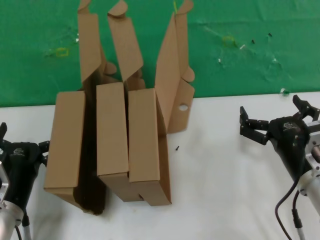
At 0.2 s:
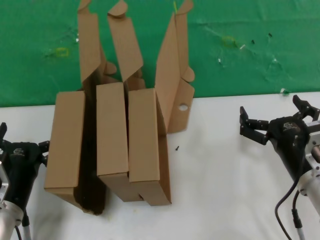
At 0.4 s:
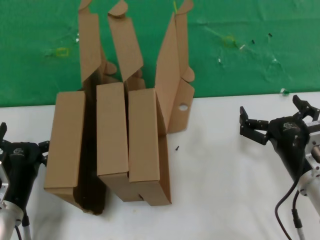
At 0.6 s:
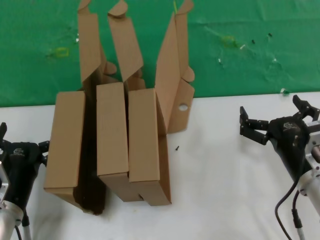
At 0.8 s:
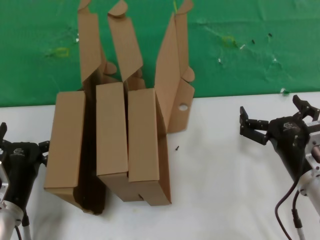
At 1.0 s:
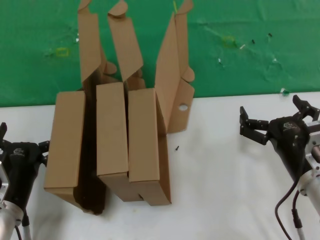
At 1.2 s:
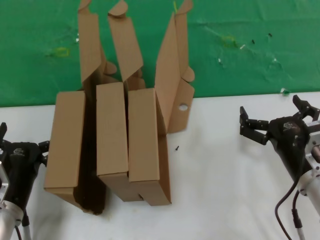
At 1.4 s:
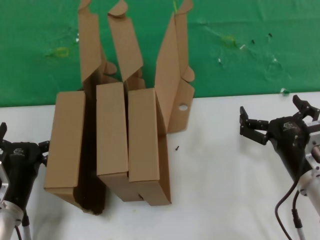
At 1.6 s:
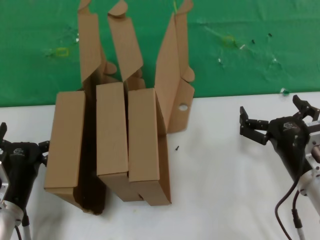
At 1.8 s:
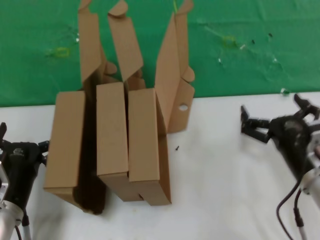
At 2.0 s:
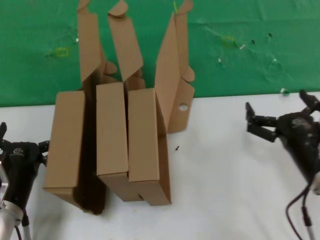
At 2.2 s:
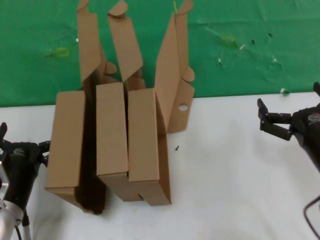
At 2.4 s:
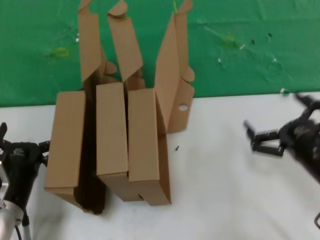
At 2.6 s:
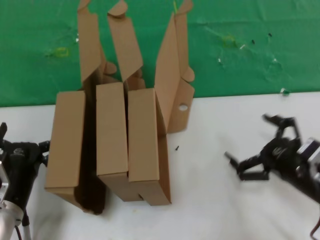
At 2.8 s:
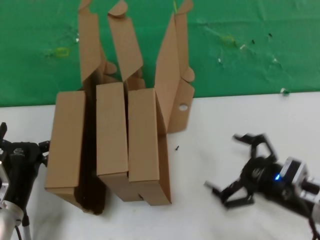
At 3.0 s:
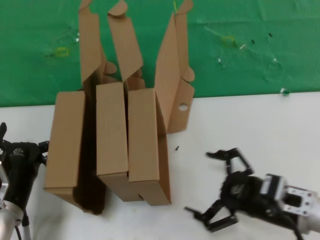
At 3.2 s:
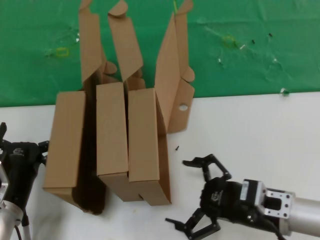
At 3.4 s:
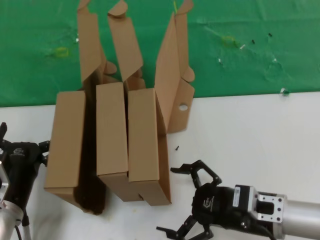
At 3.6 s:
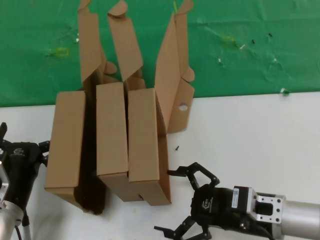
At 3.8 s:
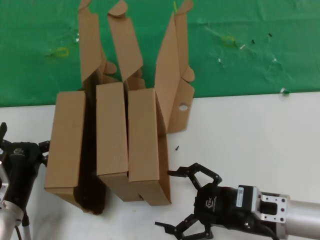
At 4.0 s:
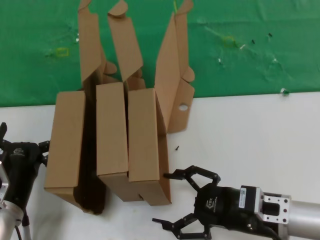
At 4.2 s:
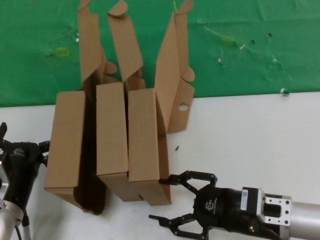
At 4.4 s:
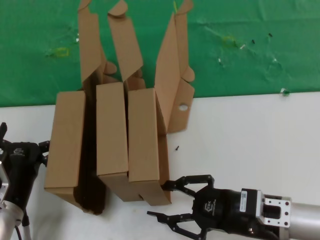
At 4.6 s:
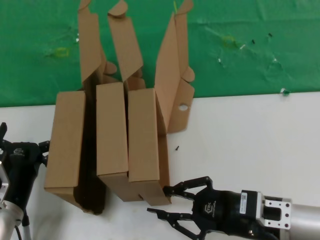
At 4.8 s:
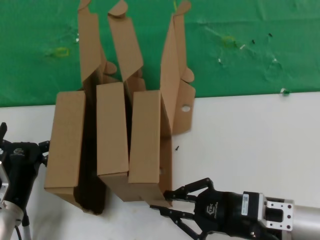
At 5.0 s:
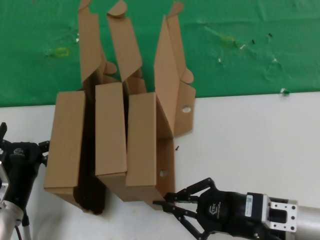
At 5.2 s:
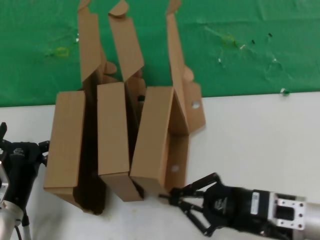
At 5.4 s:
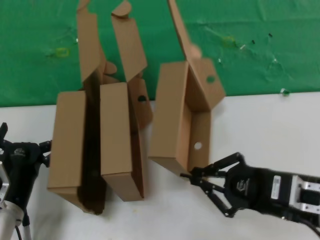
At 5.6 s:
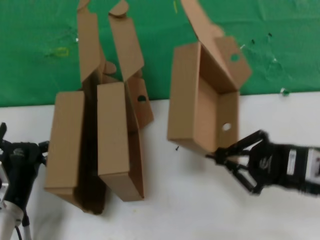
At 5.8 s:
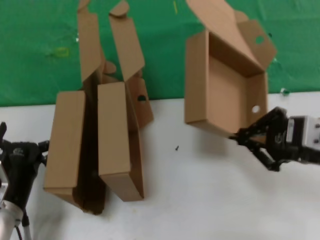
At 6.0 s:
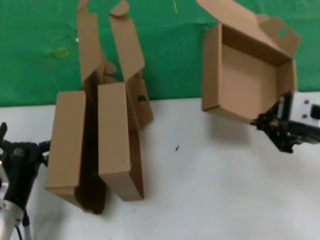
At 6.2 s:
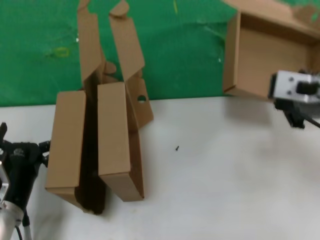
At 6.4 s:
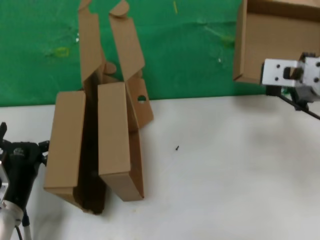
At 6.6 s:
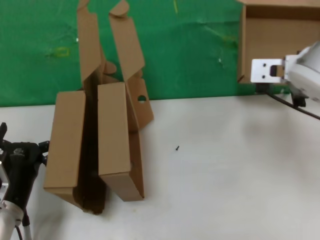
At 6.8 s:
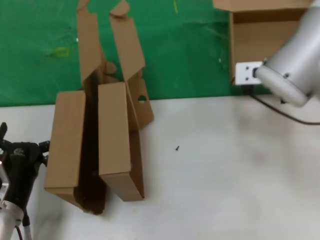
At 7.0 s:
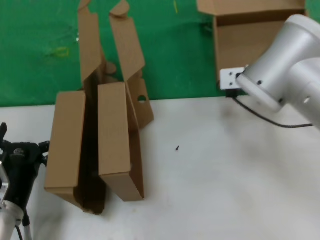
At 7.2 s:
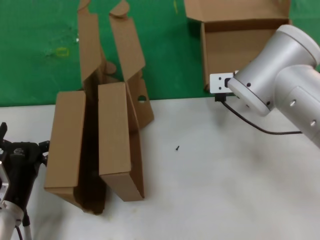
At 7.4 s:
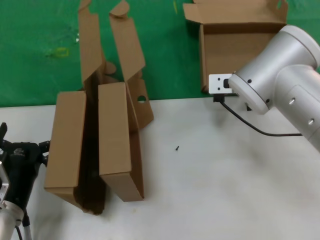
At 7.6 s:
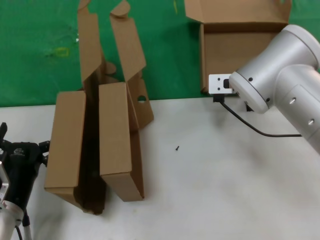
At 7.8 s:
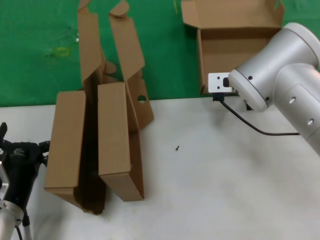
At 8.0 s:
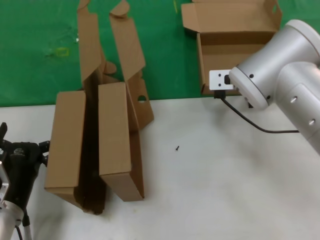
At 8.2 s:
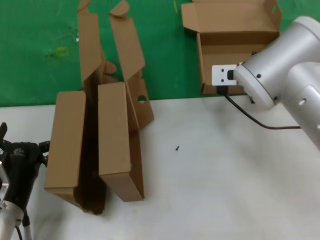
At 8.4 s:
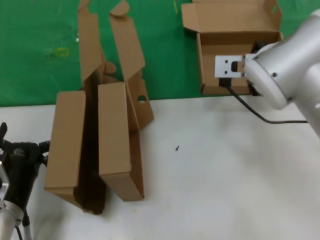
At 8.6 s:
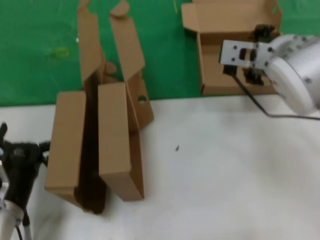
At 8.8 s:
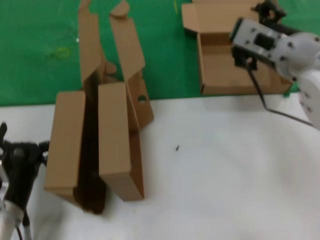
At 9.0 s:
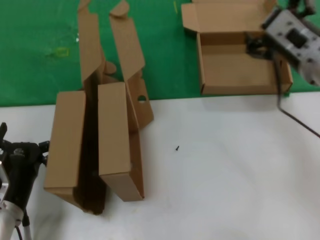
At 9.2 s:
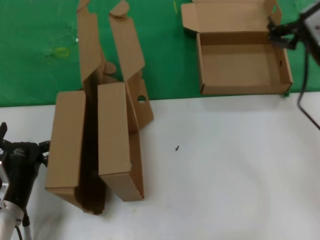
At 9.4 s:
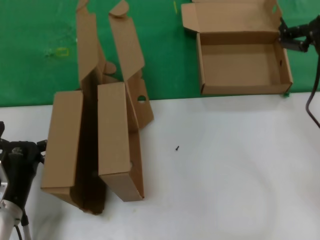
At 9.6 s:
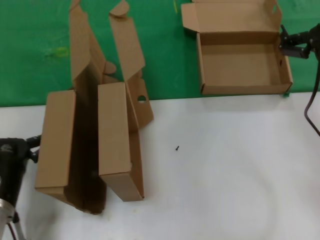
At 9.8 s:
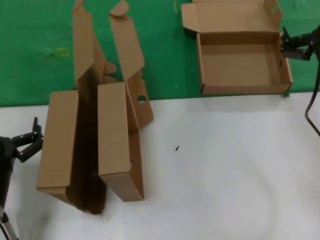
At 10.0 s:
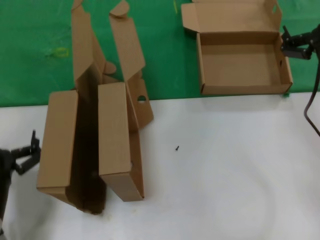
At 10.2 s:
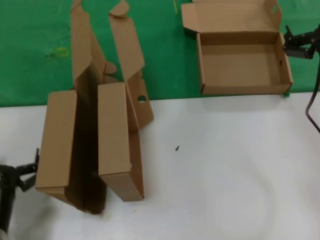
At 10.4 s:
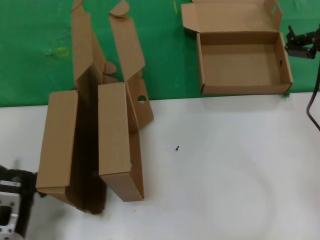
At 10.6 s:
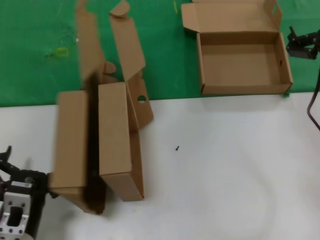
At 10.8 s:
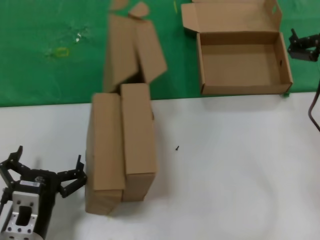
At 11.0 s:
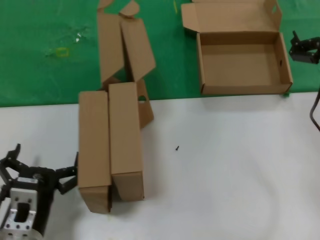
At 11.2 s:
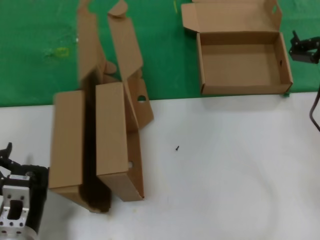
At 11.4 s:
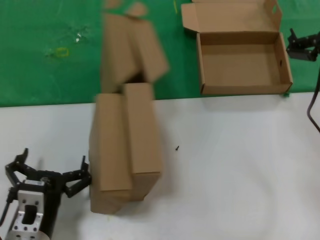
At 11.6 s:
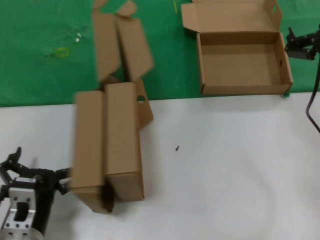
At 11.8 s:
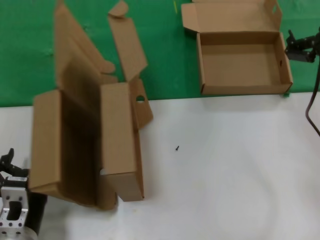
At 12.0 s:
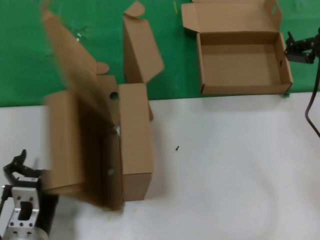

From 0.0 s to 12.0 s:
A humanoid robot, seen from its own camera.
Task of the whole recording: pick up the paper box and put it at the back.
Step, from 0.0 s to 5.0 s: Grasp the paper box.
Step, from 5.4 s to 8.4 s: Place the paper box on the table.
From 0.0 s to 1.6 s: Both hands stay put.
From 3.0 s to 4.4 s: The hands stay close to where they were, moving slightly.
From 4.4 s to 6.0 s: The right hand goes approximately 20 cm upward.
From 6.0 s to 7.6 s: The right hand heads forward and to the left, covering roughly 20 cm.
From 7.6 s to 9.0 s: The right hand travels backward and to the right by about 15 cm.
From 9.0 s to 10.4 s: The right hand goes approximately 5 cm to the right.

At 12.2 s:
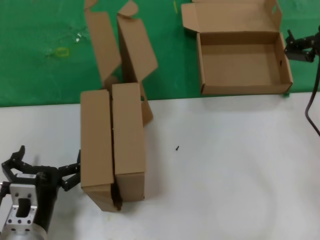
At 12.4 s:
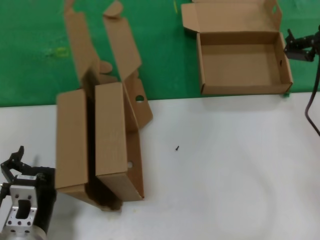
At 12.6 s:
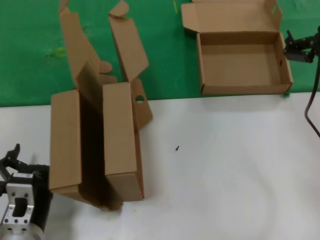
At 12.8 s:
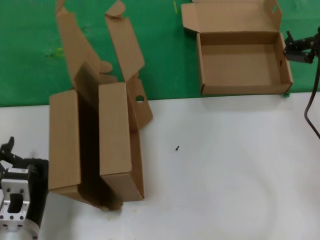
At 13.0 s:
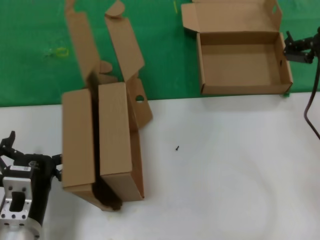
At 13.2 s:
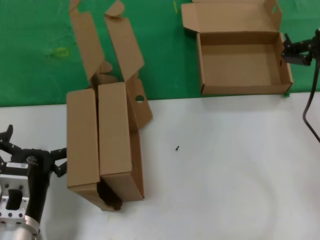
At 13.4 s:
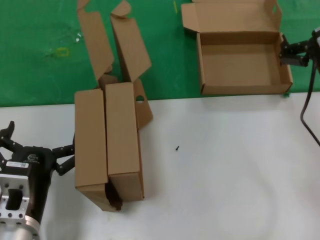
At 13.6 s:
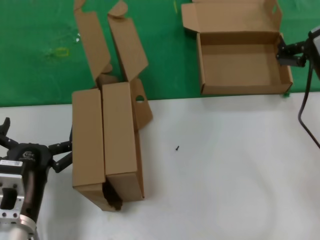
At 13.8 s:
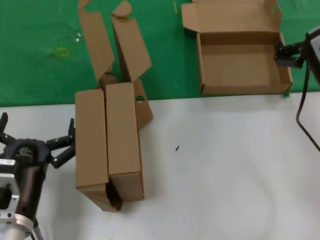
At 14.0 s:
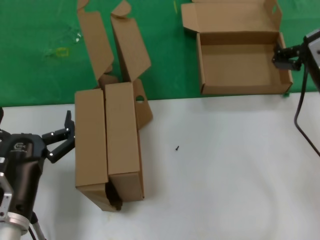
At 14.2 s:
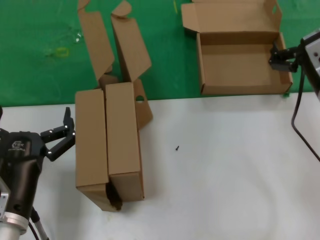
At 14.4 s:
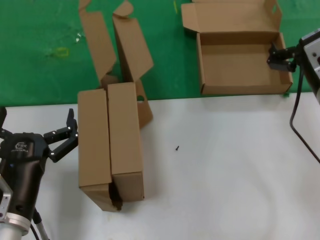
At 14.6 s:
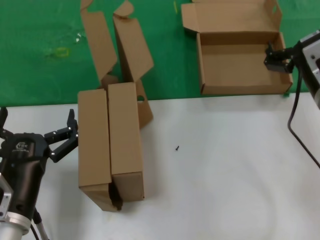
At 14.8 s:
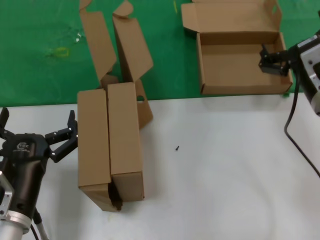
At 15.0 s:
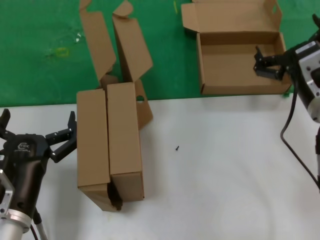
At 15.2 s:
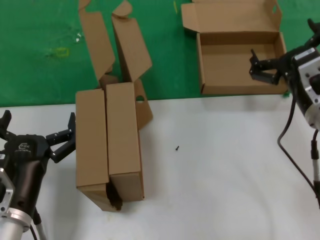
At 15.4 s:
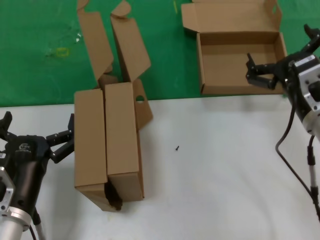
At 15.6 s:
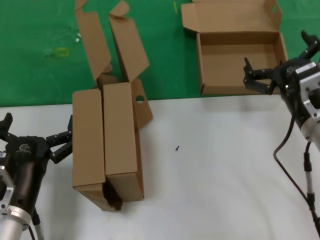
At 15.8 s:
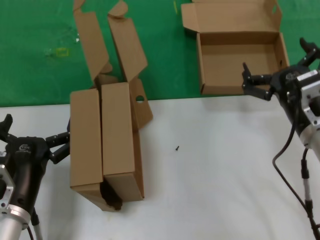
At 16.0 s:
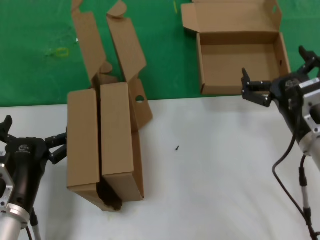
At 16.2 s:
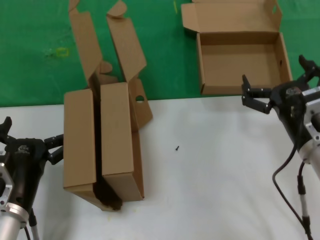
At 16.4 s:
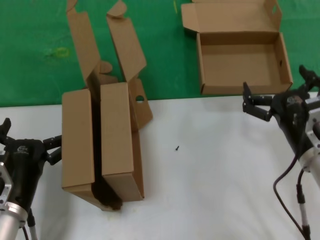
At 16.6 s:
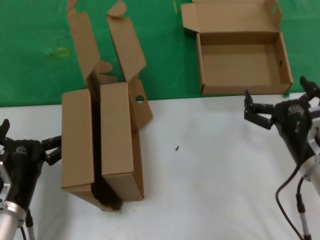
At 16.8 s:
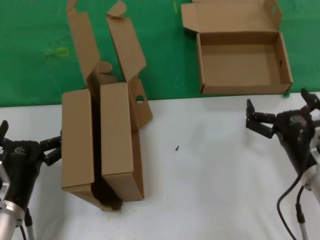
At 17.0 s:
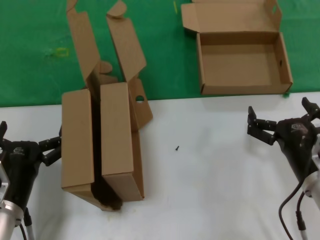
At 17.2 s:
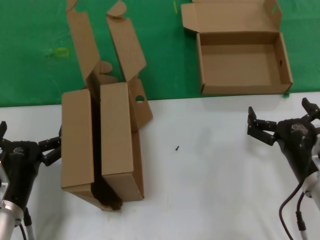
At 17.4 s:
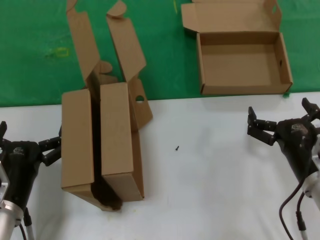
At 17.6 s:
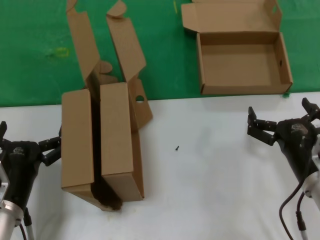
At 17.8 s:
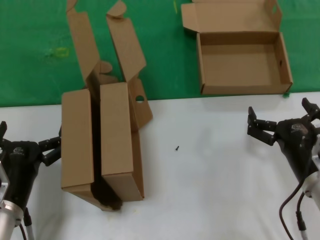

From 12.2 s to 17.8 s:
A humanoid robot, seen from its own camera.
Task of the whole recording: pick up the paper box and put it at the back.
From 12.2 s to 13.6 s: The left hand is displaced upward by roughly 5 cm.
From 13.6 s to 15.0 s: There are only small adjustments of the hands.
From 15.0 s to 16.4 s: The right hand is displaced downward by approximately 10 cm.
From 16.4 s to 17.8 s: The hands move only a little.
